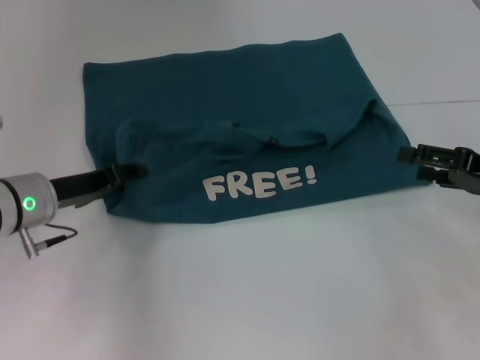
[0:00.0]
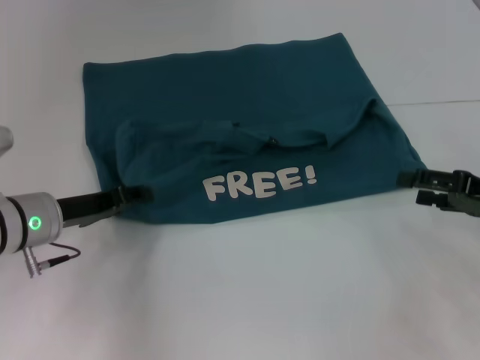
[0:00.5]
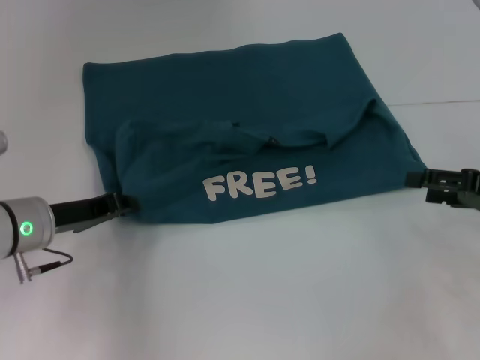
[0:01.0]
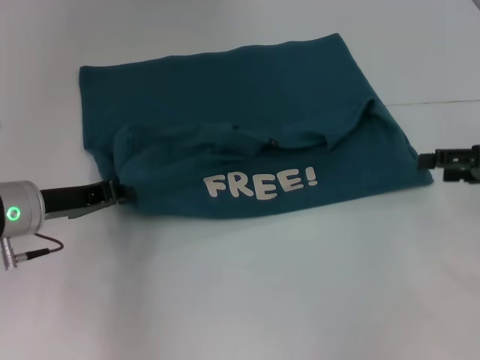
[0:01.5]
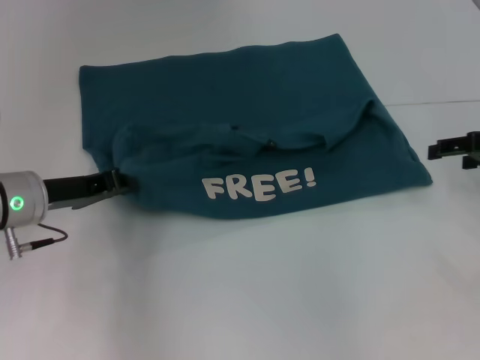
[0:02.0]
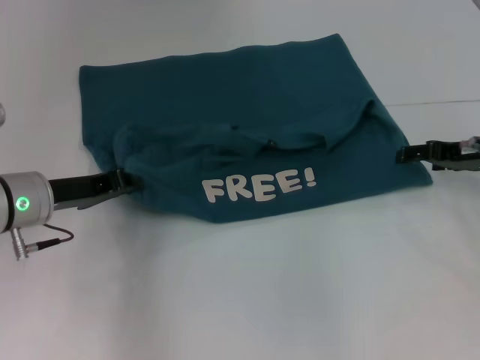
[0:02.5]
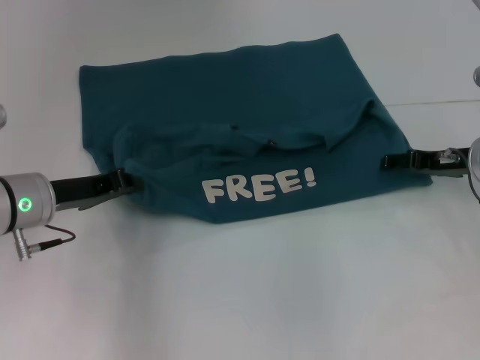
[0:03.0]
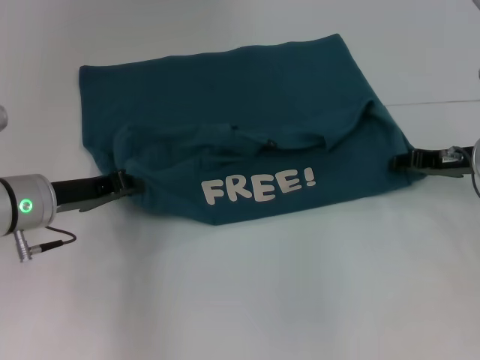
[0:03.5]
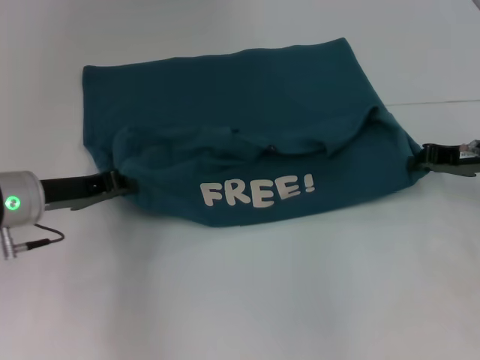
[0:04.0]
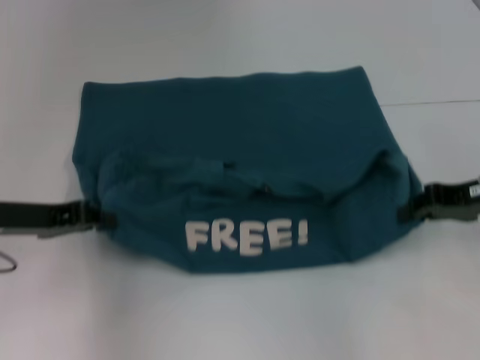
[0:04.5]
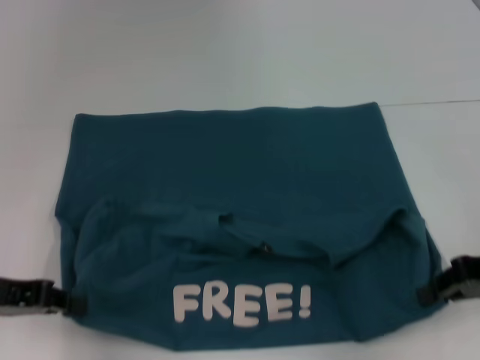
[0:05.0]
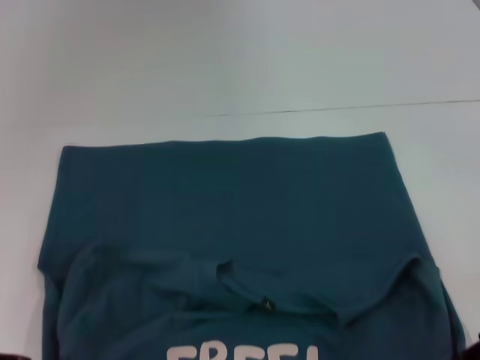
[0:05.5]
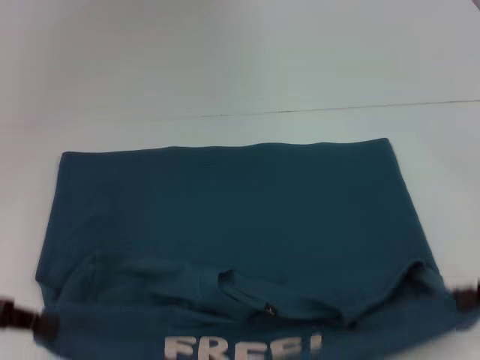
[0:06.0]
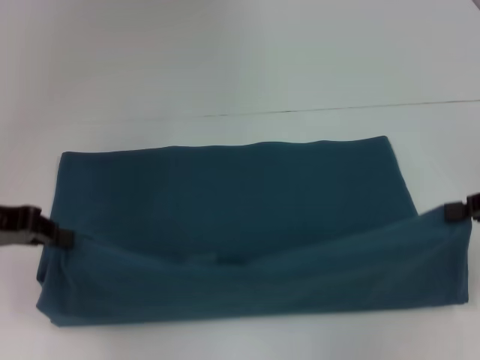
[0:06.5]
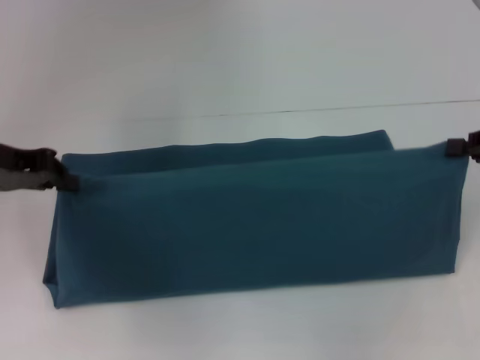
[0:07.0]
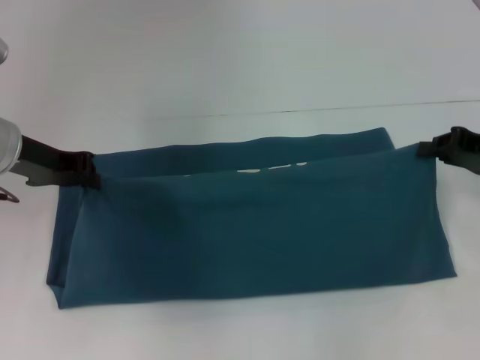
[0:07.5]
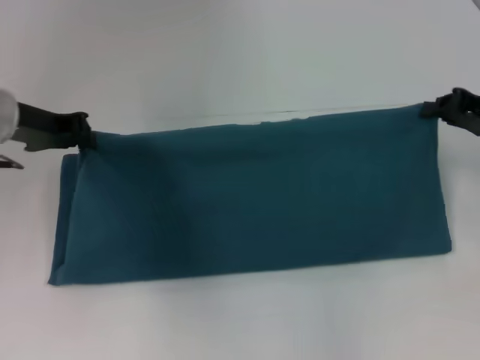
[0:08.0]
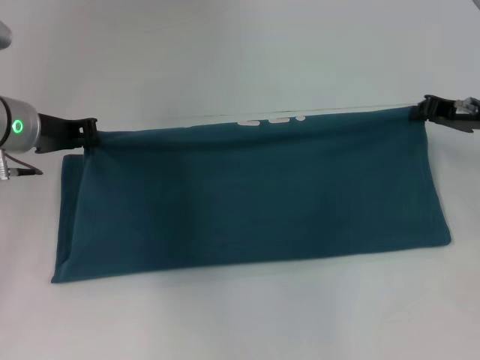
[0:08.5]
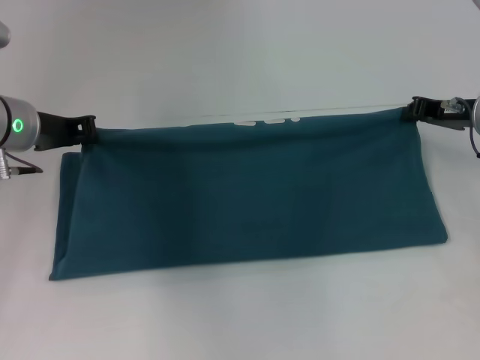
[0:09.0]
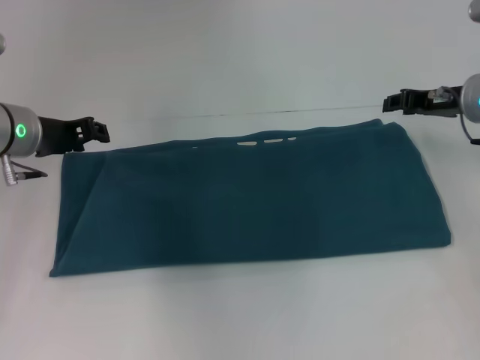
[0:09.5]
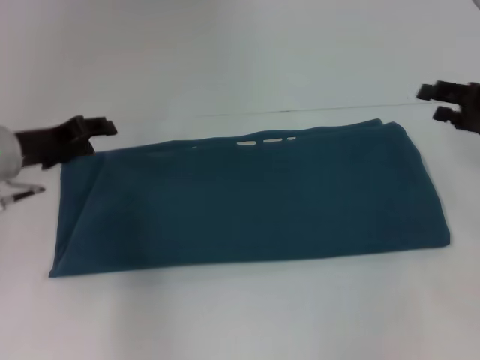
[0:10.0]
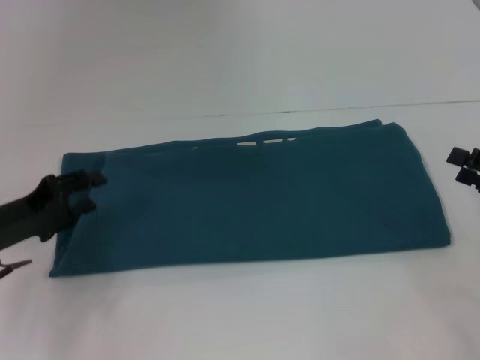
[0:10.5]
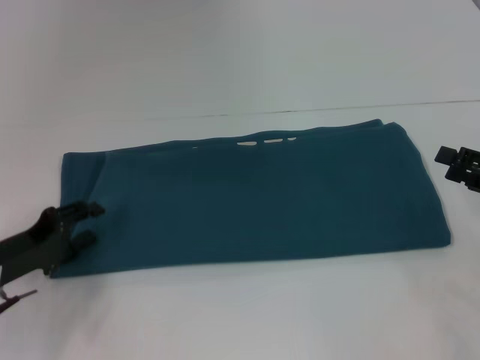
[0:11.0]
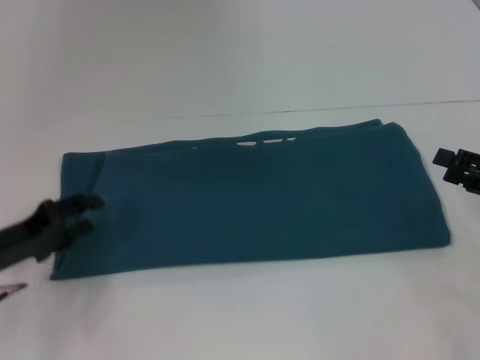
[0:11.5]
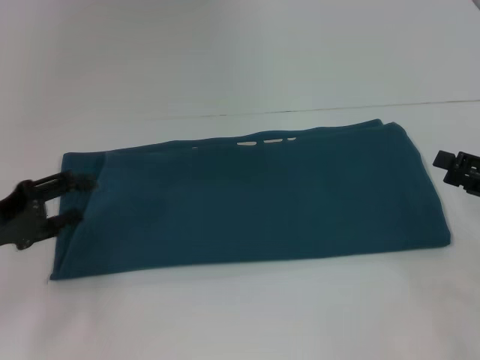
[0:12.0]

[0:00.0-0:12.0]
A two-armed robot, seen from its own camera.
Step, 0:00.0 to 0:05.5: Pull the clothes with your left hand.
Step, 0:00.0 to 0:05.5: Pull the clothes with your right hand.
Step, 0:06.0 to 0:09.0: Fold the clothes to the right.
0:00.0 to 0:02.0: The left gripper closes, while the right gripper is displaced forward by some 5 cm.
0:02.0 to 0:04.0: The right gripper closes its fingers.
0:04.0 to 0:06.0: The right gripper travels backward by about 15 cm, while the left gripper goes approximately 15 cm backward and to the left.
0:06.0 to 0:08.0: The right gripper goes some 15 cm forward; the left gripper heads forward and to the right, covering approximately 15 cm.
0:08.0 to 0:10.0: The right gripper opens its fingers, while the left gripper shifts roughly 5 cm downward, and opens up.
0:10.0 to 0:12.0: The left gripper shifts about 10 cm backward and to the left. The right gripper goes approximately 10 cm backward.

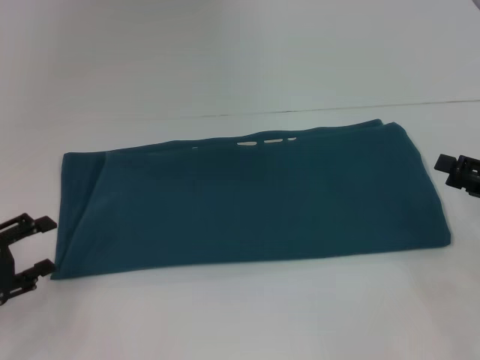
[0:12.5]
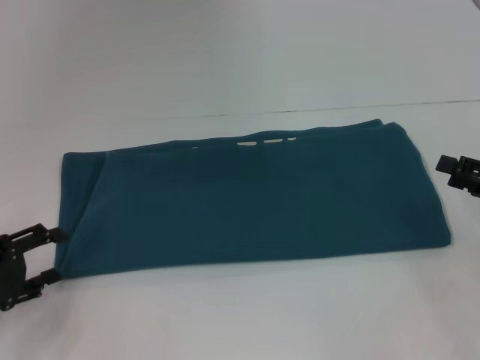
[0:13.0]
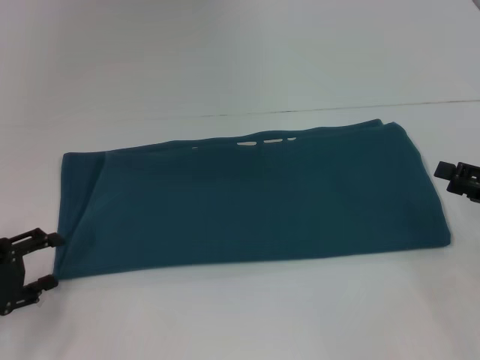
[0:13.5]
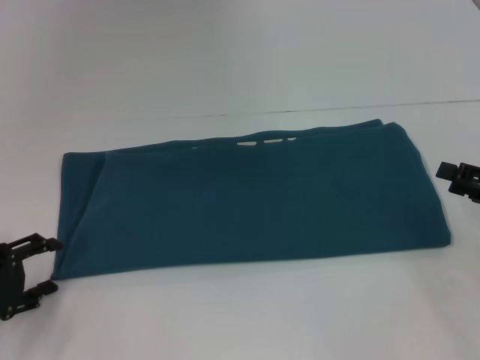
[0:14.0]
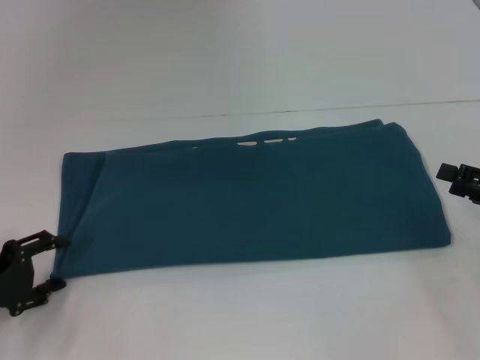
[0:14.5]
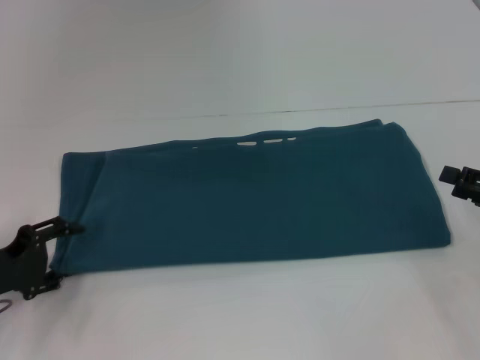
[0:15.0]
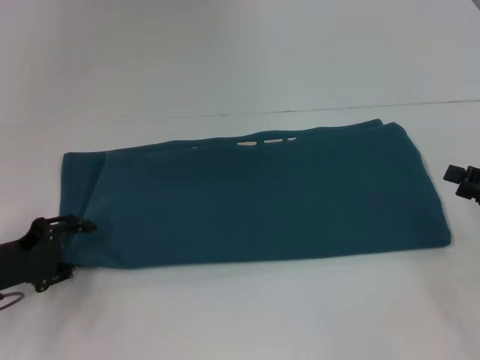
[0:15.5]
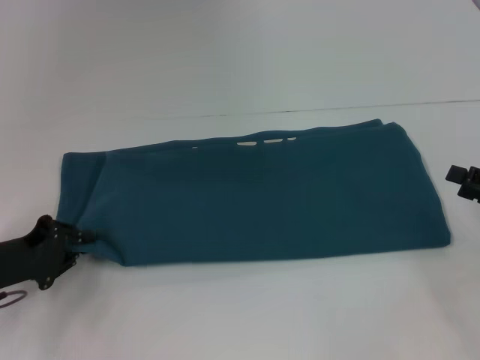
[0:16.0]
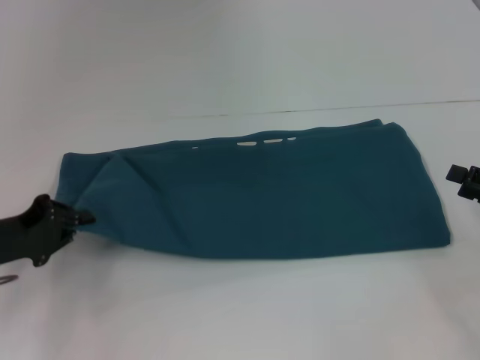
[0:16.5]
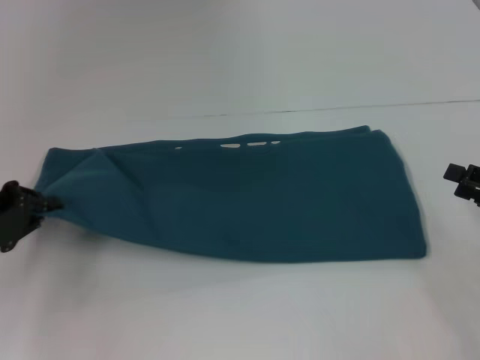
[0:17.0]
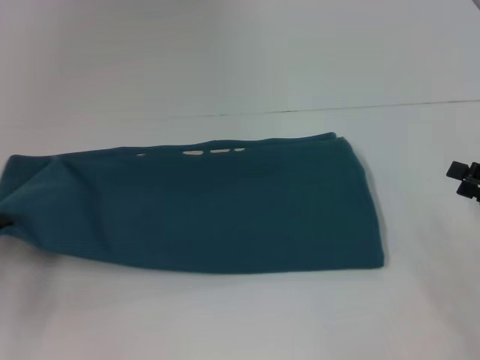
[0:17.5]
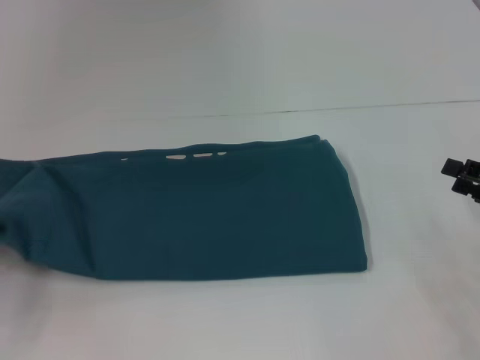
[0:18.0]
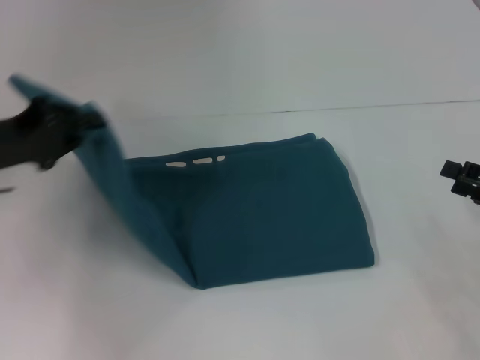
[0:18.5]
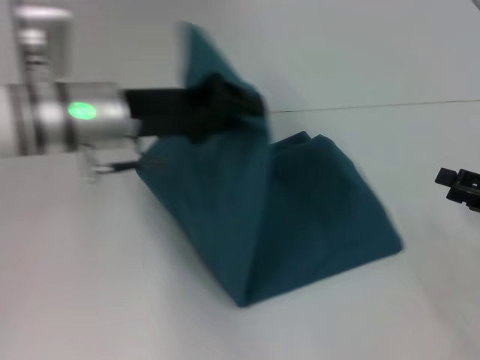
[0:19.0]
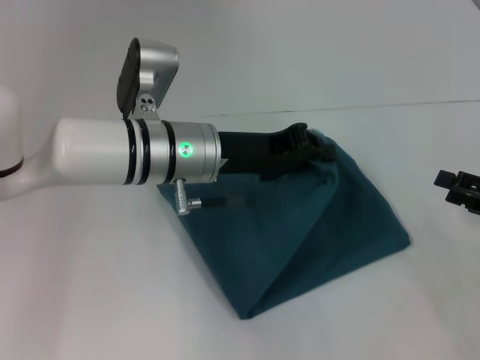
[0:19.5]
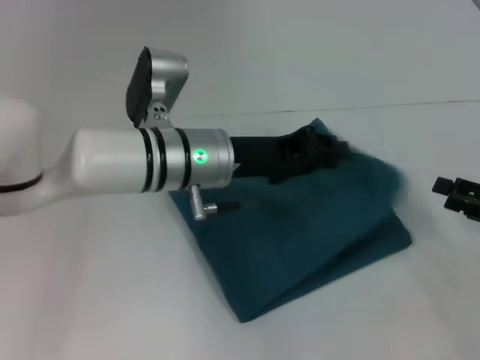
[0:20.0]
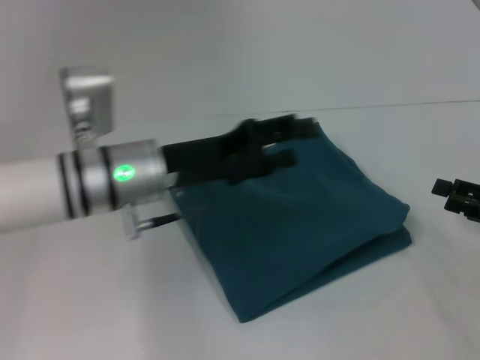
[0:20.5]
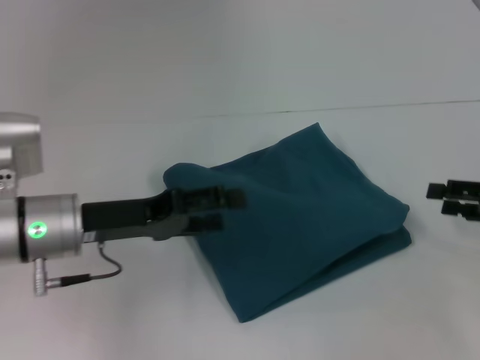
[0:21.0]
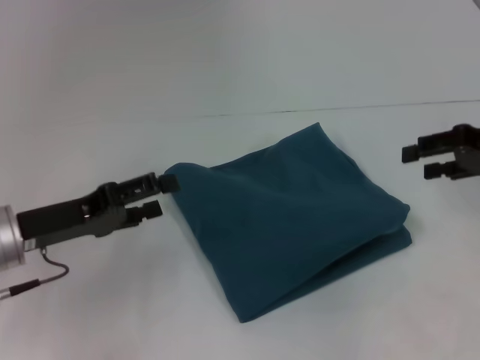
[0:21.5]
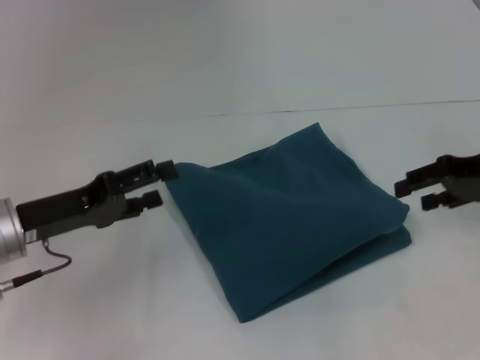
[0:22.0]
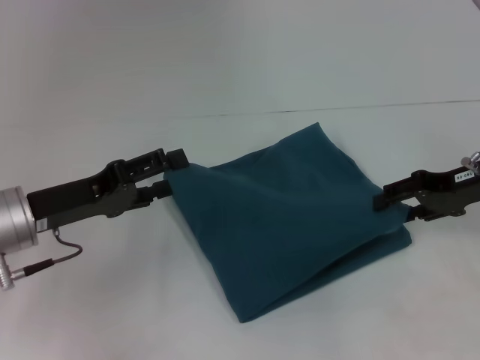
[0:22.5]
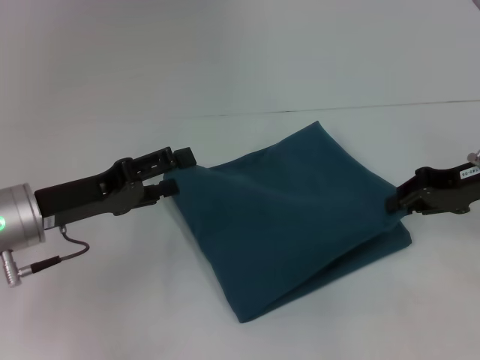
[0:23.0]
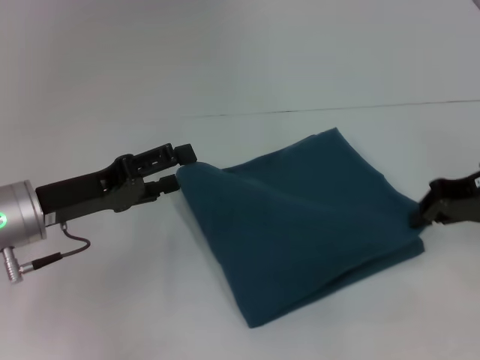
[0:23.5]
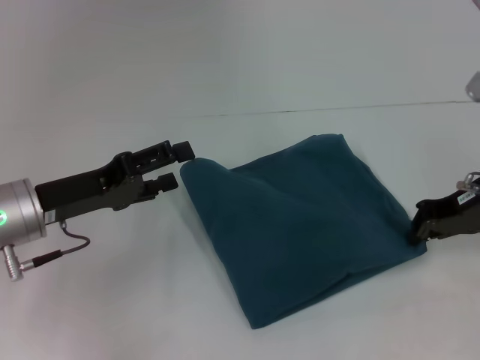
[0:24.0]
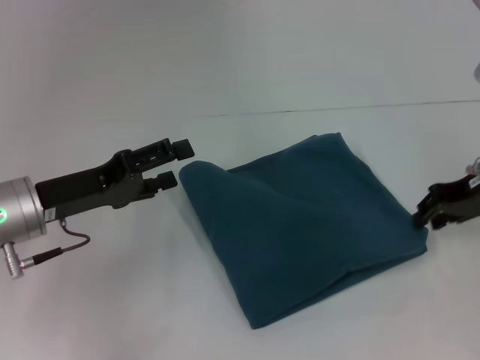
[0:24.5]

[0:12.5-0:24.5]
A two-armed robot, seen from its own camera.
Step, 0:12.5 to 0:20.0: Fold the clothes to the left.
0:12.5 to 0:14.5: The grippers stay close to where they were, moving slightly.
0:14.5 to 0:16.5: The left gripper moves some 5 cm, and closes up.
0:16.5 to 0:18.5: The left gripper goes about 10 cm upward.
0:18.5 to 0:20.5: The left gripper shifts roughly 15 cm to the right, and opens its fingers.
0:20.5 to 0:22.5: The left gripper goes approximately 10 cm to the left, and opens. The right gripper is displaced forward, to the left and upward by about 15 cm.
0:22.5 to 0:24.5: The right gripper closes.

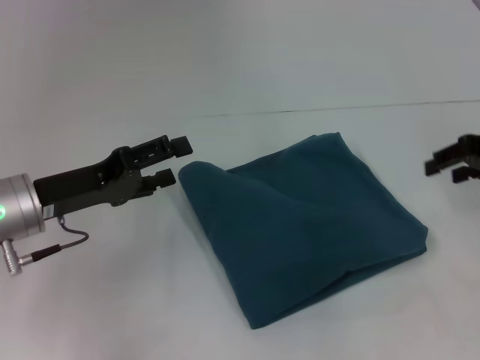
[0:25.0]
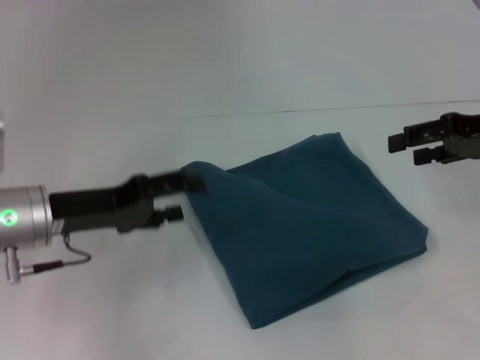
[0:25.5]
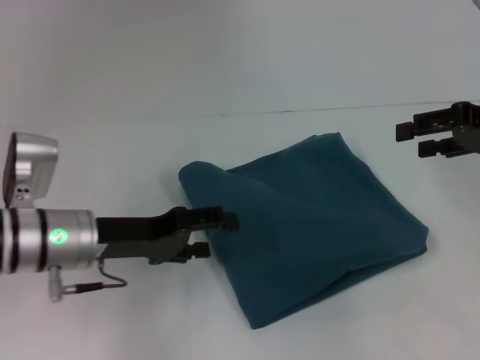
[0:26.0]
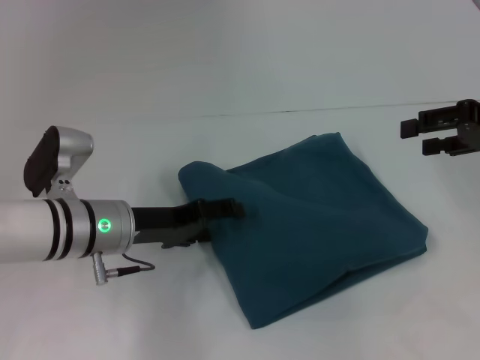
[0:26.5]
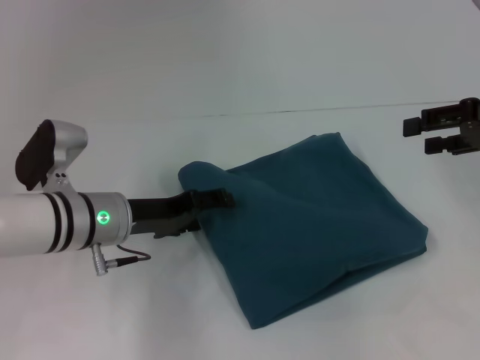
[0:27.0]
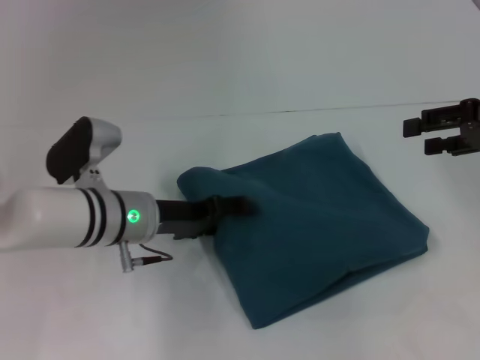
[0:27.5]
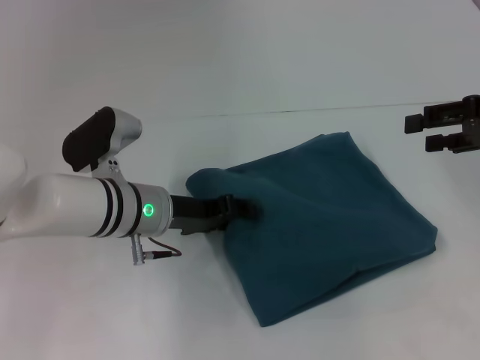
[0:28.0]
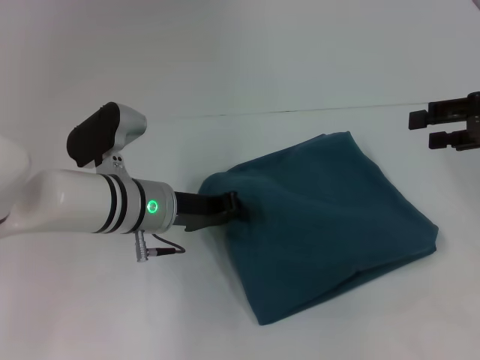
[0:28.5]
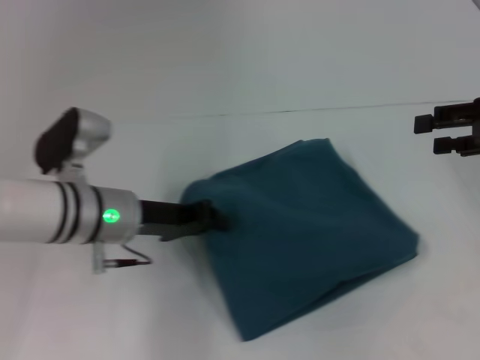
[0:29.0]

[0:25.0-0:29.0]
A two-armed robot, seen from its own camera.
0:25.0 to 0:27.0: The left gripper travels to the right by roughly 5 cm; the right gripper opens.
0:27.0 to 0:29.0: The left gripper closes its fingers.
